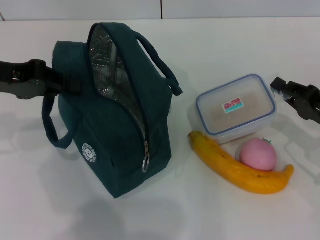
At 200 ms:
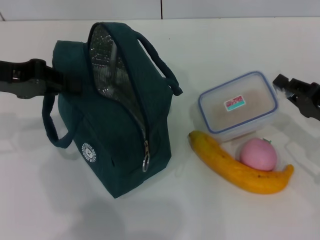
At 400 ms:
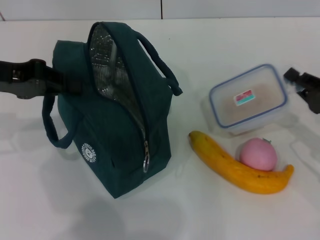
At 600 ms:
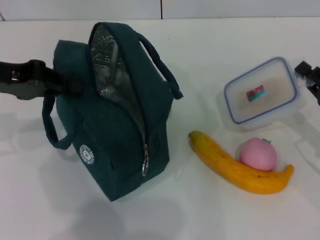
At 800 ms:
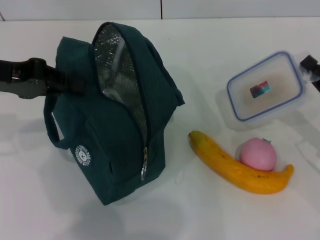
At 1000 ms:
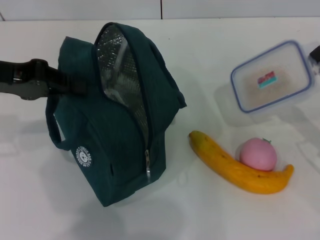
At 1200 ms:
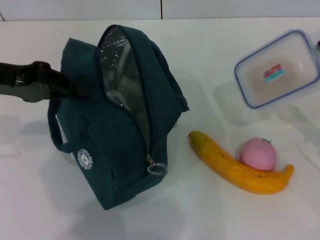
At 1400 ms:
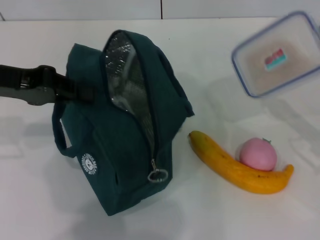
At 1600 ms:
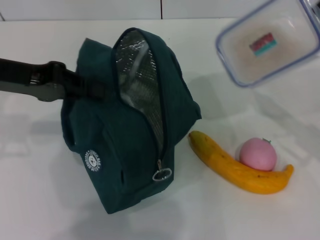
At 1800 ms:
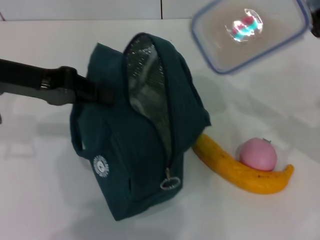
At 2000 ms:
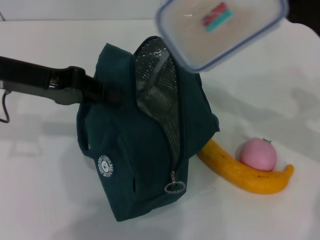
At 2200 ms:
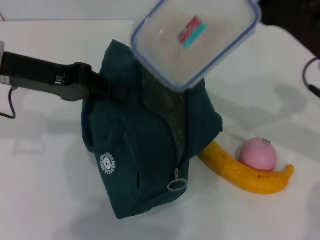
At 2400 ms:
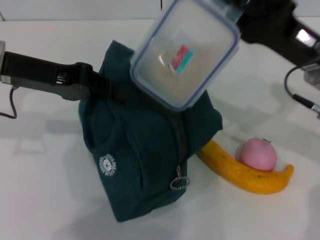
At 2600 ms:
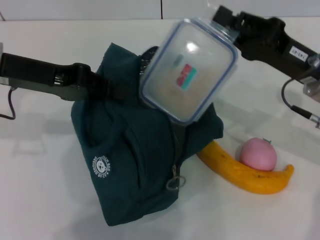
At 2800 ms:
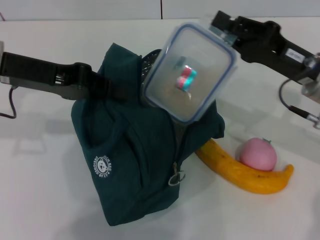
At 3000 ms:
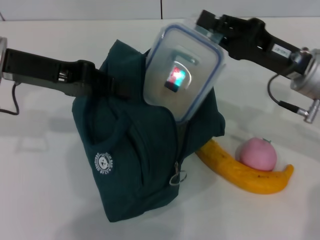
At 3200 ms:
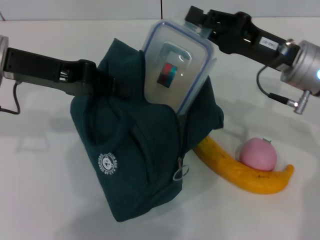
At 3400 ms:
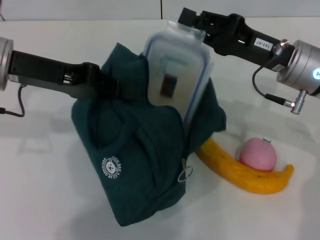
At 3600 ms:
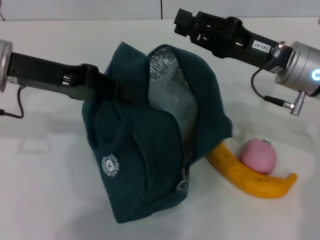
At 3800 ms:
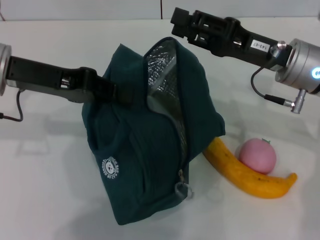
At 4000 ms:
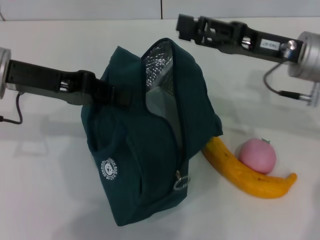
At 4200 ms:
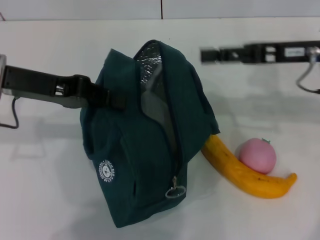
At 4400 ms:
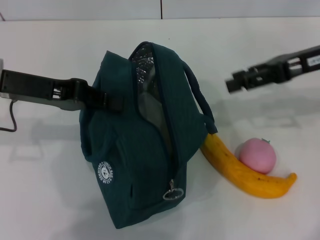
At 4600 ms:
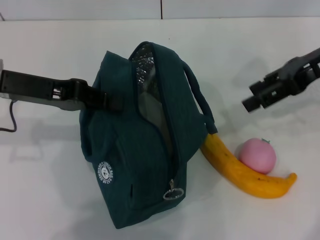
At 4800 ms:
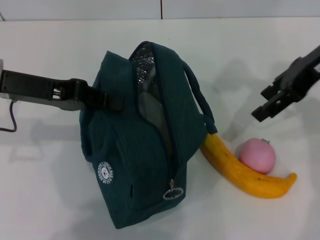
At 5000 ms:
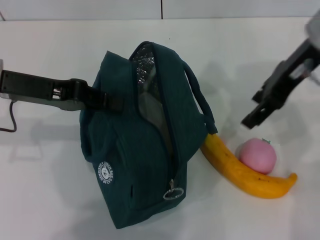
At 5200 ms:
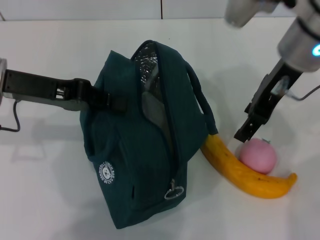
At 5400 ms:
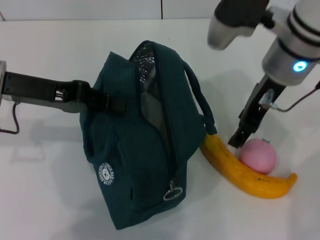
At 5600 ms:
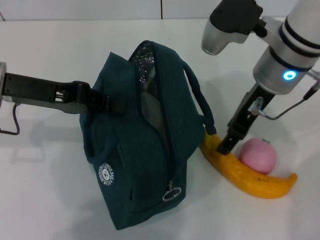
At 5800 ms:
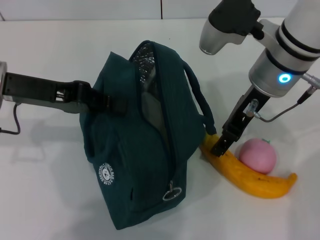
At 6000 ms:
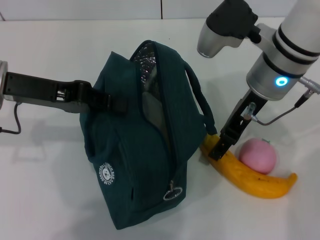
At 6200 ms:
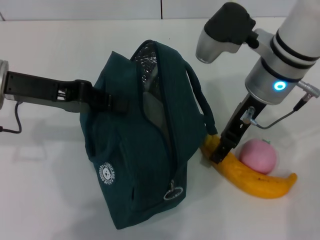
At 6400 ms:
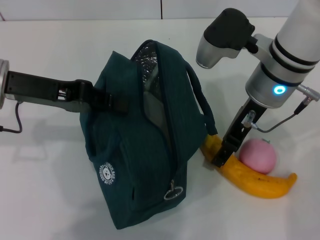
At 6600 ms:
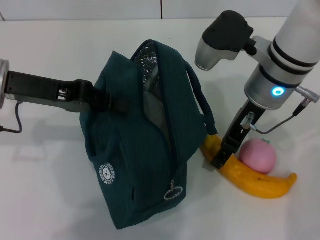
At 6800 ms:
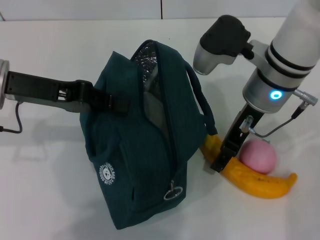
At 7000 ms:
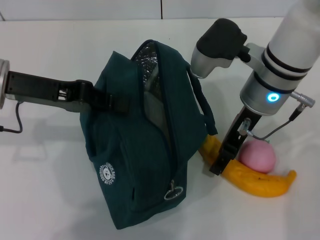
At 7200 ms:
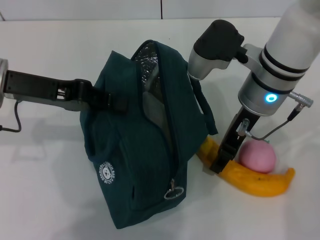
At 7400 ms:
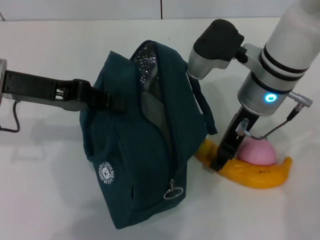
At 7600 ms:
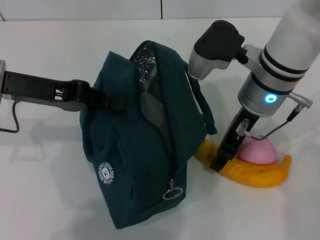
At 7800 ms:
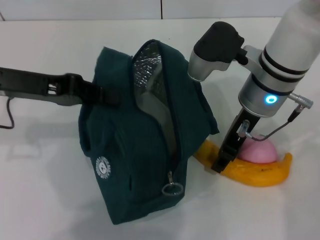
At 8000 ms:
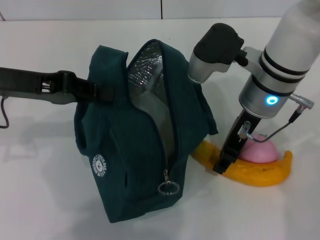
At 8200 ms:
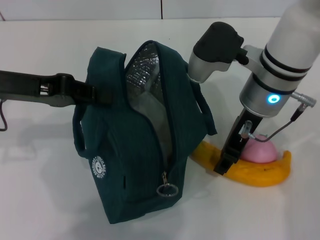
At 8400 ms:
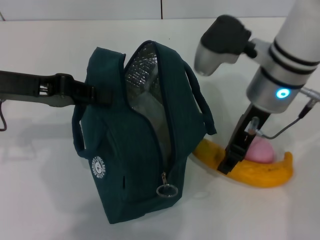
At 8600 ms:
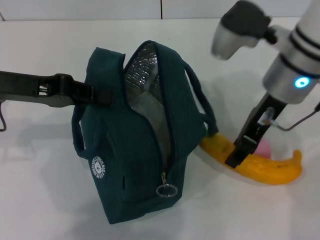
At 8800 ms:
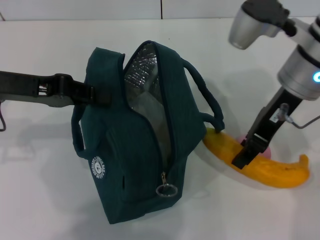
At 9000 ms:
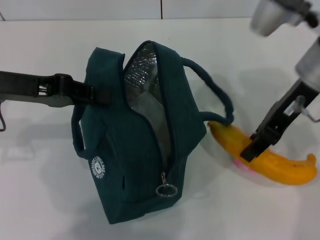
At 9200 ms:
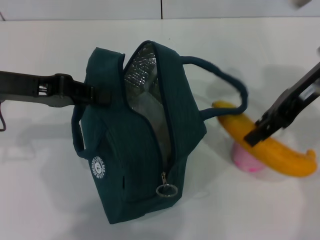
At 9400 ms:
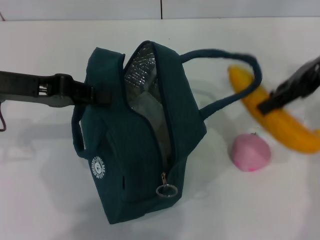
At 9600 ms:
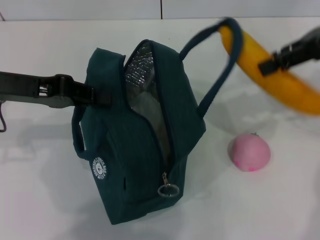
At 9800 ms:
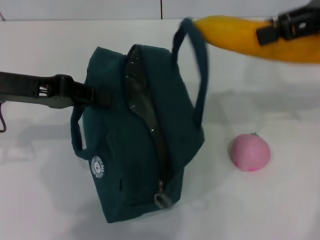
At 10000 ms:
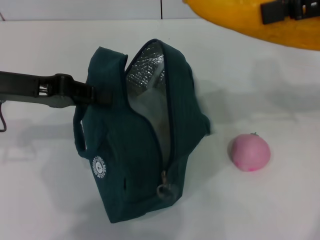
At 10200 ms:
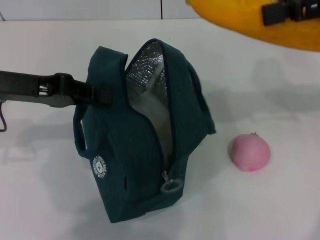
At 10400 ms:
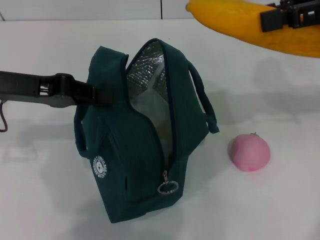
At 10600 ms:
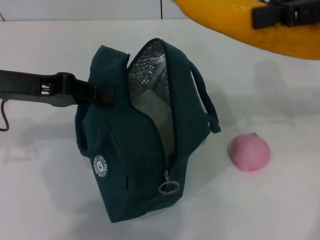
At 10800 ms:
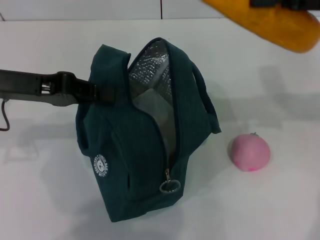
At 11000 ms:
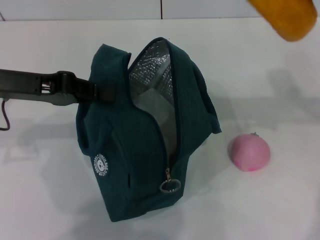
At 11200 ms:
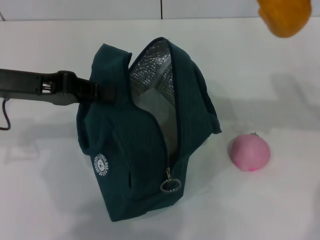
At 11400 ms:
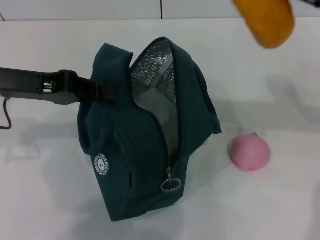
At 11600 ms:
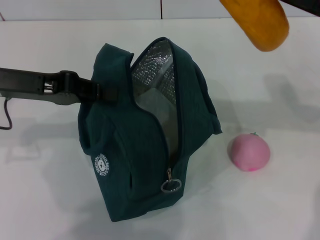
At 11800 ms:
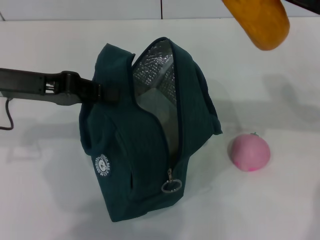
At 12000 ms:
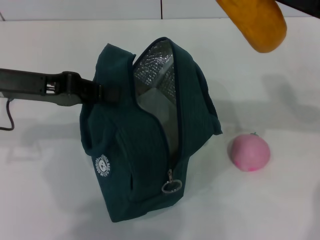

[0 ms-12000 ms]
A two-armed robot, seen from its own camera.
Step, 0 ms to 3800 ms: Place the lunch box into the lunch bag with your right hand.
Step, 4000 ms to 7400 ms: Take the banana with your right hand.
0 ms to 1600 ms: The right gripper shifts about 5 cm upward.
1600 ms to 3000 ms: The right gripper heads to the left and forward, covering some 10 cm.
3000 ms to 4400 ms: The right gripper goes about 10 cm upward and to the right, and opens its fingers.
4400 ms to 6000 ms: The right gripper goes about 15 cm to the left.
6000 ms to 7600 ms: The grippers stay close to where they were, moving slightly.
7600 ms to 9000 ms: The right gripper is displaced to the right by roughly 5 cm.
9000 ms to 10400 ms: The right gripper heads to the right and upward, covering some 15 cm.
10400 ms to 12000 ms: The right gripper travels downward by approximately 10 cm.

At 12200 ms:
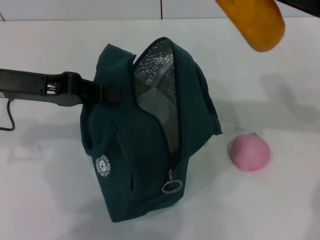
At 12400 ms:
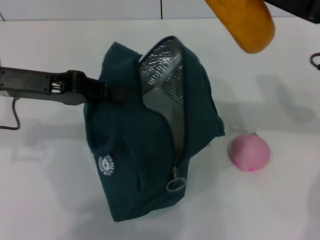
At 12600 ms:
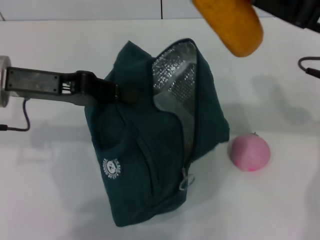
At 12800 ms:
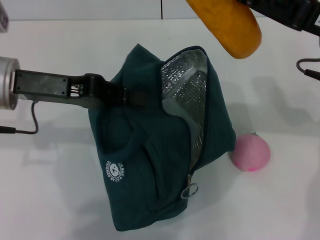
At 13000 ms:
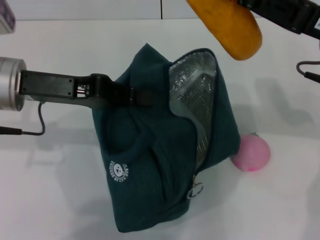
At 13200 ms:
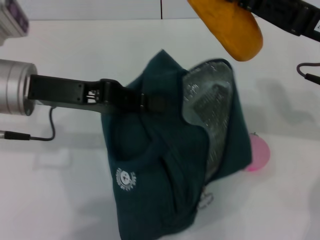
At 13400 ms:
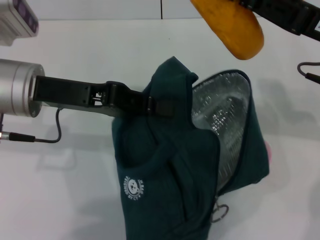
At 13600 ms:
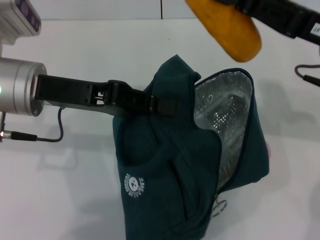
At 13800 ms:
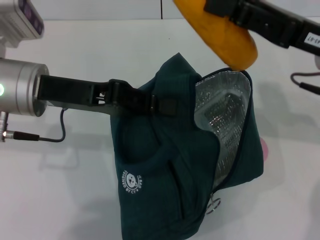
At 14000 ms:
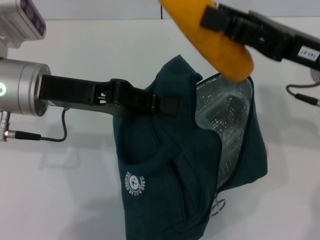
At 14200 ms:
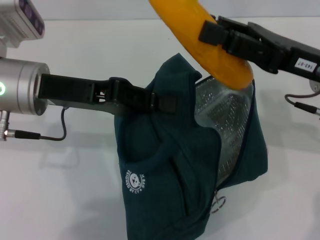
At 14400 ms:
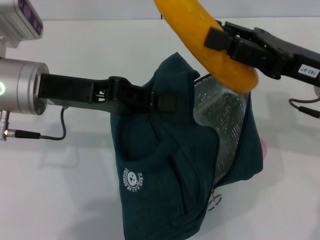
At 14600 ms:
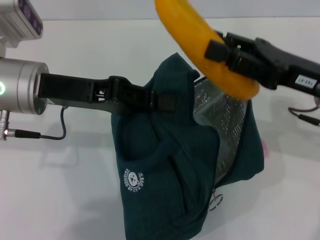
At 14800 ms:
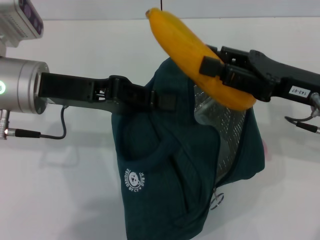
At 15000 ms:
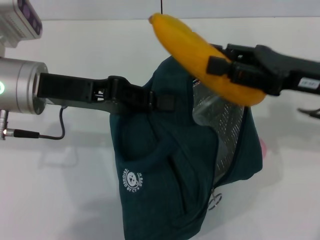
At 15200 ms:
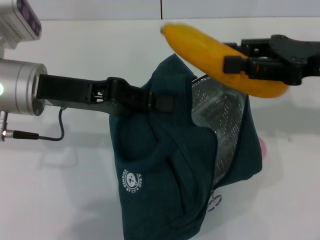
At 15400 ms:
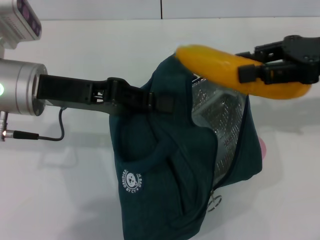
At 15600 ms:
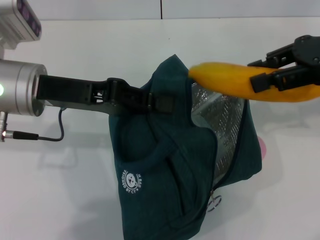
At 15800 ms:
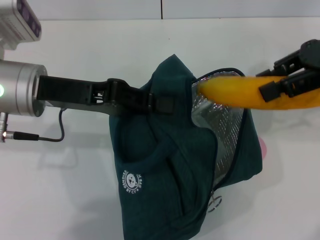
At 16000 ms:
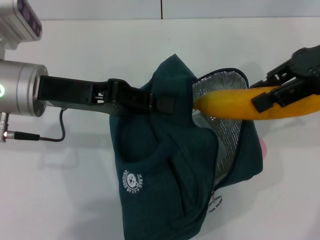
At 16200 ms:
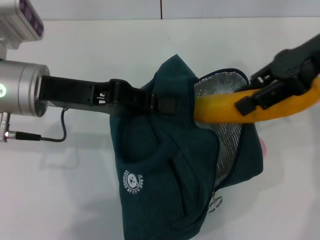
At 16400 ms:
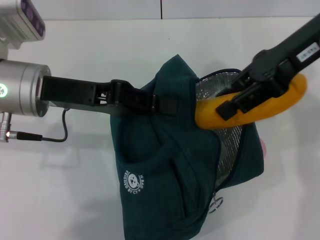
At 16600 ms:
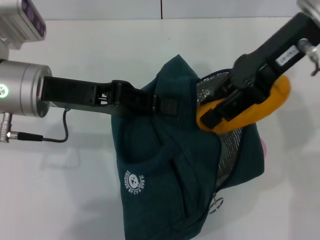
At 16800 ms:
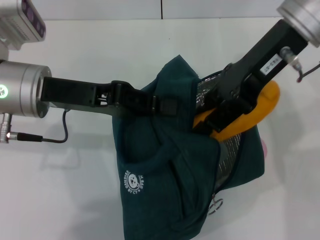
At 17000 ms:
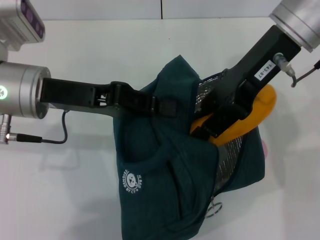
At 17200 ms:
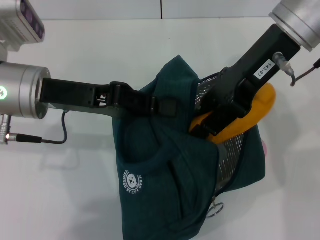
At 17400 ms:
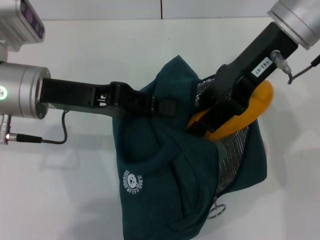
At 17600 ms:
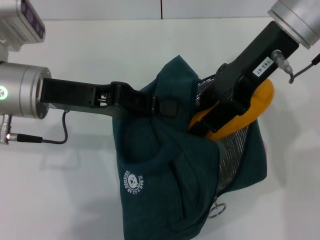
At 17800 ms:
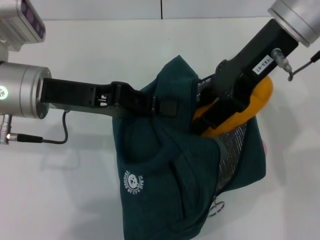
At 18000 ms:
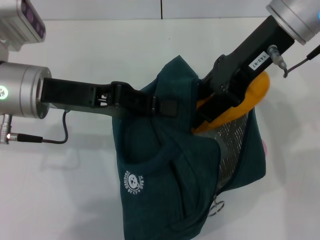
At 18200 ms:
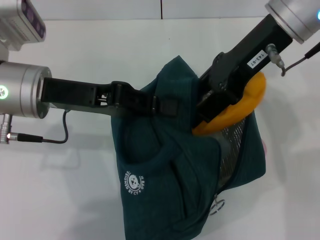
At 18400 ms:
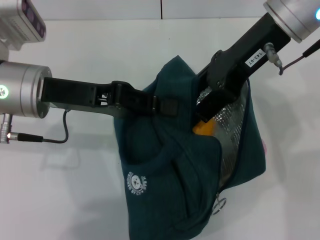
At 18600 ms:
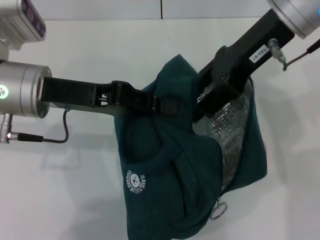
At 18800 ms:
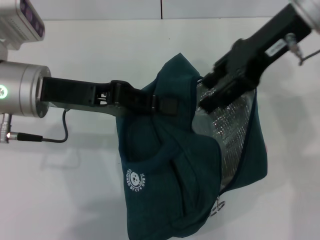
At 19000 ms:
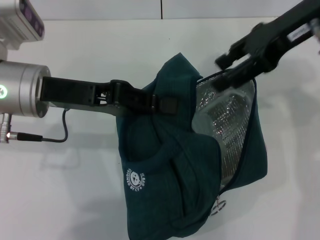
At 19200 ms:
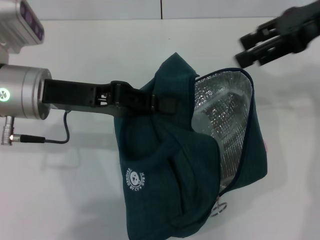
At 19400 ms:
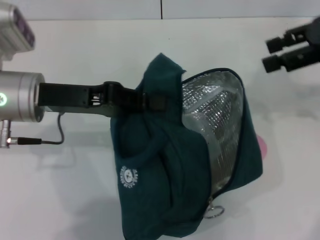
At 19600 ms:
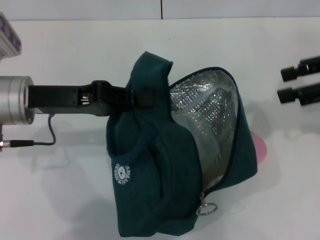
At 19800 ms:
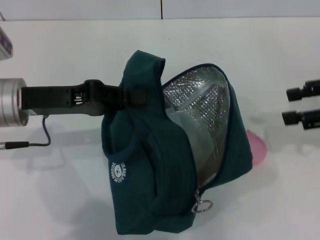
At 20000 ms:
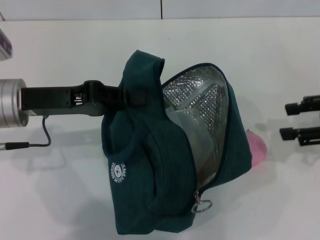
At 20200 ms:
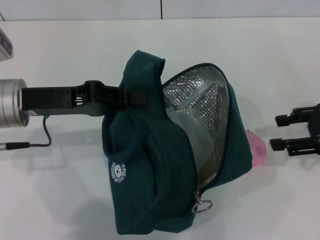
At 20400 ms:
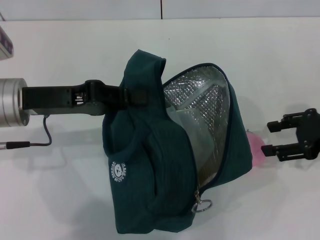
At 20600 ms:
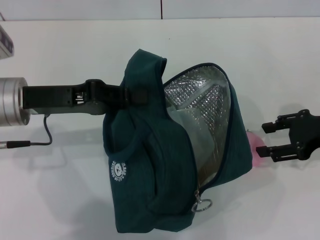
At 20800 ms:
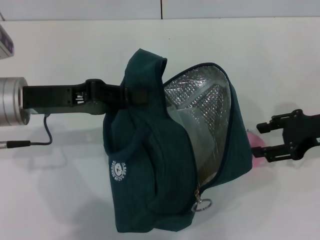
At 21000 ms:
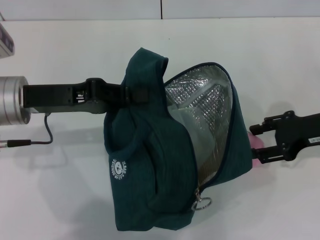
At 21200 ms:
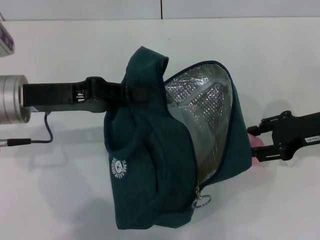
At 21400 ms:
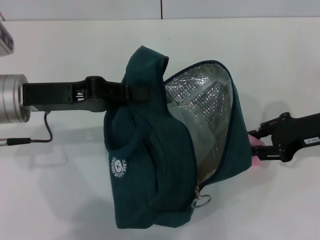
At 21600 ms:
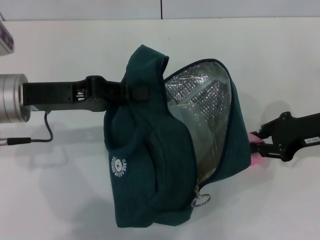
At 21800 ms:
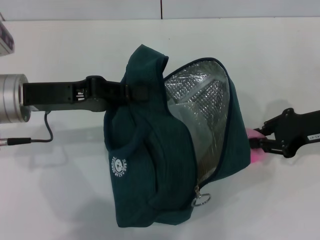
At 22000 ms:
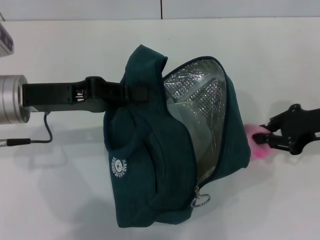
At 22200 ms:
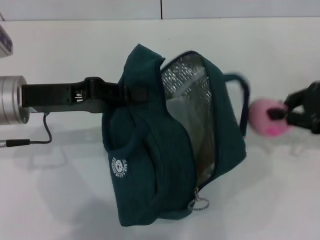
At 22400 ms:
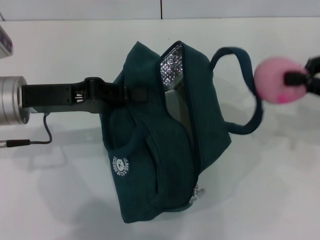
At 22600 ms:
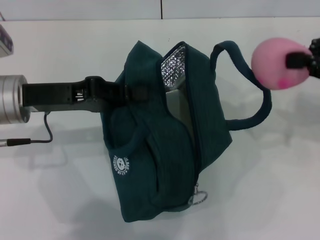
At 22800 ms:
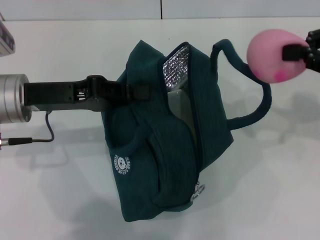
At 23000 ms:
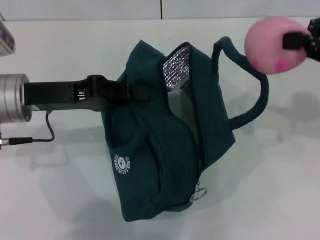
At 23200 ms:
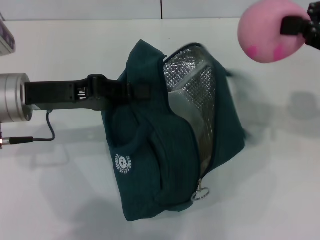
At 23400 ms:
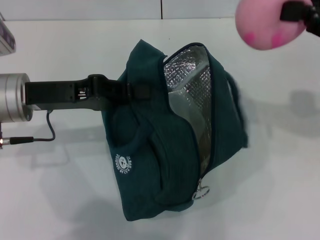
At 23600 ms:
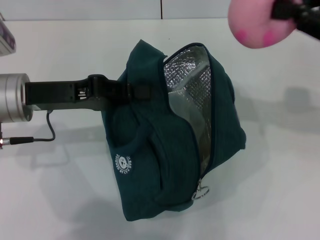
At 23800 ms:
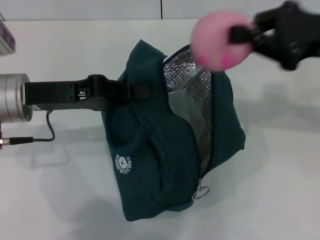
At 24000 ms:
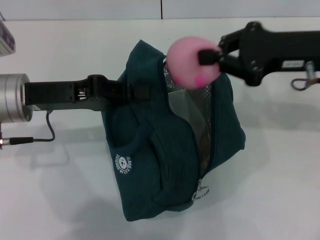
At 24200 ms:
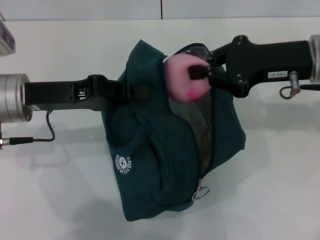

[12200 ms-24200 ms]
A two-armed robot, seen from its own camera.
Step, 12200 ms to 18600 ms: Put the banana into the lunch bag with your right hand.
Step, 18800 ms to 21600 ms: Grab the peach with your right hand.
12200 ms to 13800 ms: The left gripper heads to the right, covering about 5 cm.
15200 ms to 16600 ms: The right gripper moves to the left and upward, about 15 cm.
16600 ms to 18200 ms: There are only small adjustments of the grippers.
18200 ms to 19800 ms: The right gripper goes some 20 cm to the right and downward.
19800 ms to 21200 ms: The right gripper is displaced downward and to the left by some 10 cm.
21200 ms to 22600 ms: The right gripper goes approximately 10 cm upward, and closes up.
22600 ms to 24200 ms: The right gripper moves to the left, about 10 cm.
